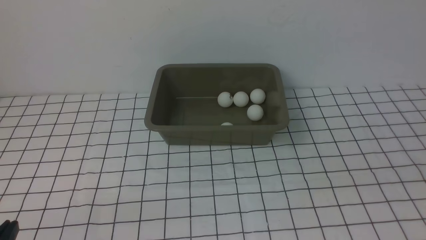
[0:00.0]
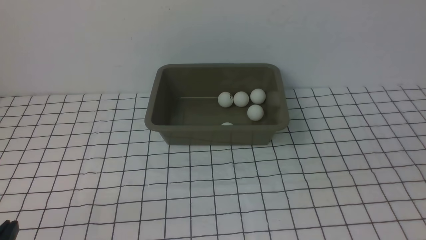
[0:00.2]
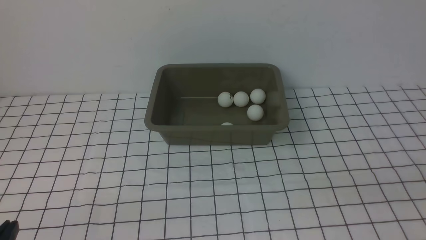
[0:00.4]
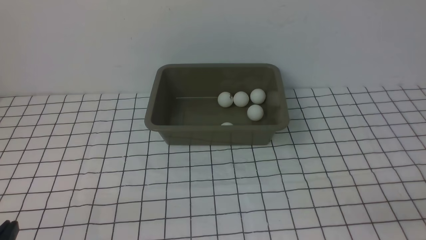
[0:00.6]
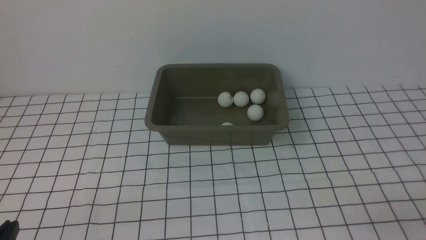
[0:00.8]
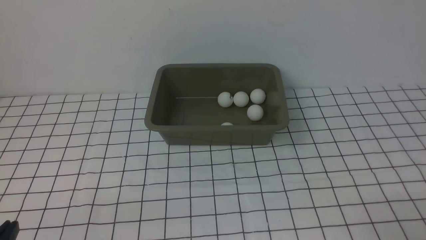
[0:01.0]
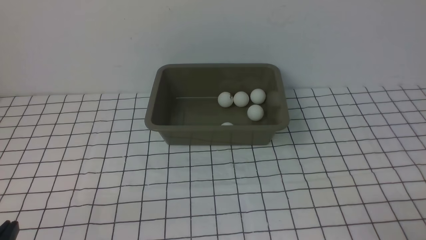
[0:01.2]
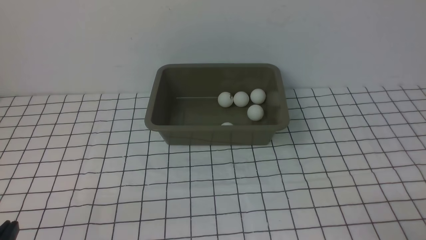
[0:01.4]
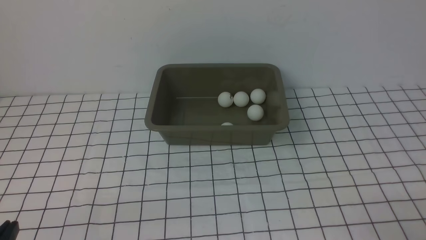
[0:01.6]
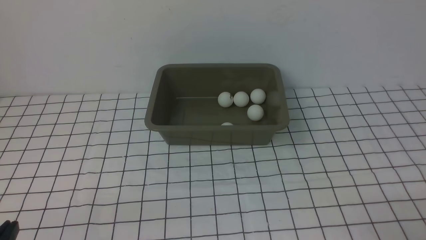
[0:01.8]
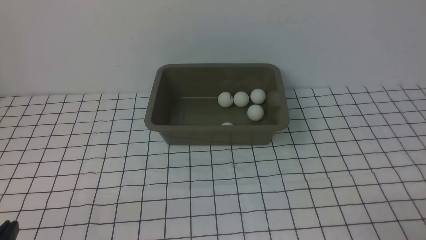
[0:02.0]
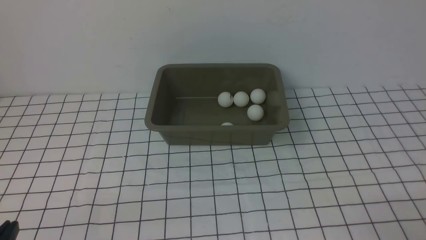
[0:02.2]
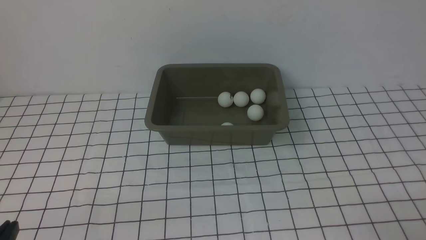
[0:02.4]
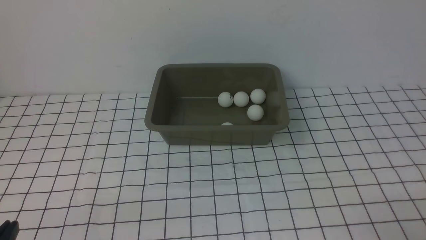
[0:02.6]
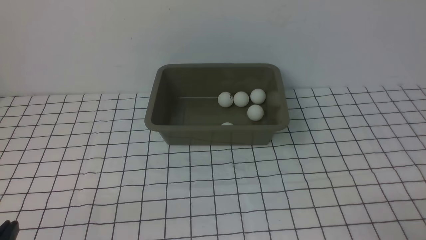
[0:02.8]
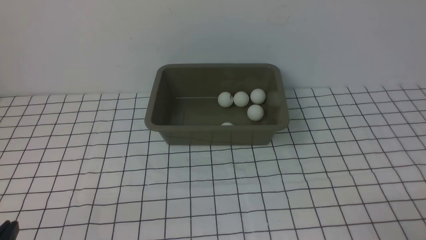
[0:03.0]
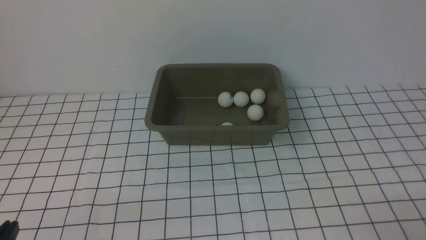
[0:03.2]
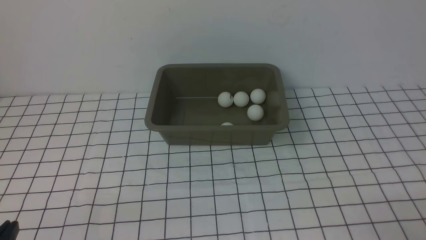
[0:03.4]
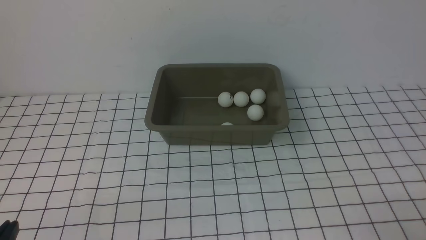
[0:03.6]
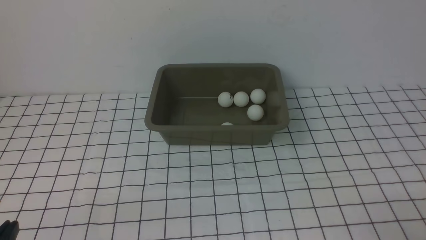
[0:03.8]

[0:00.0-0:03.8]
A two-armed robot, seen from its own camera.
0:01.2 to 0:03.8: Both grippers stay put.
